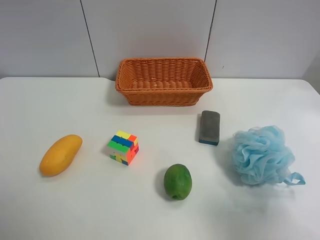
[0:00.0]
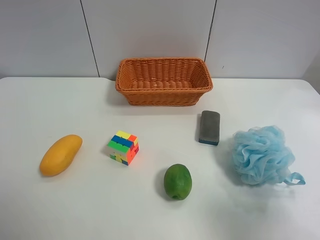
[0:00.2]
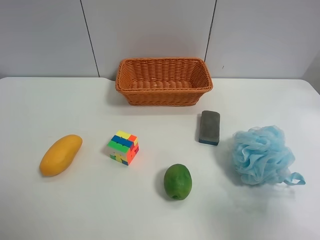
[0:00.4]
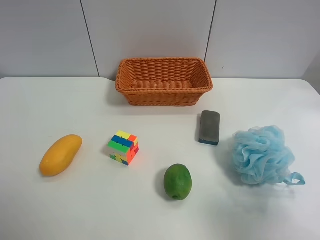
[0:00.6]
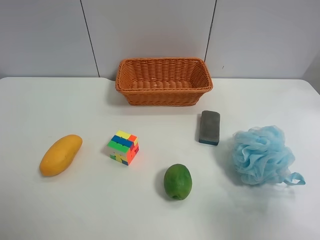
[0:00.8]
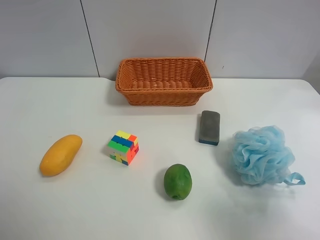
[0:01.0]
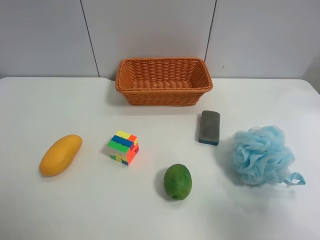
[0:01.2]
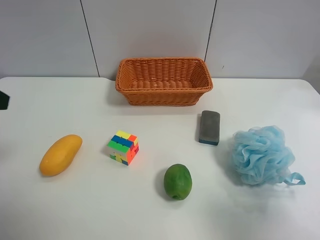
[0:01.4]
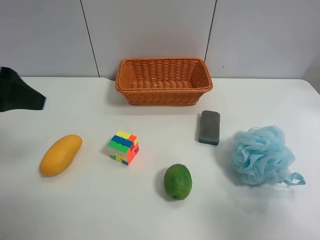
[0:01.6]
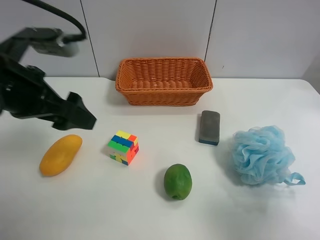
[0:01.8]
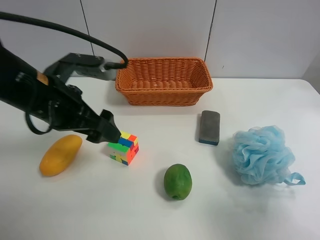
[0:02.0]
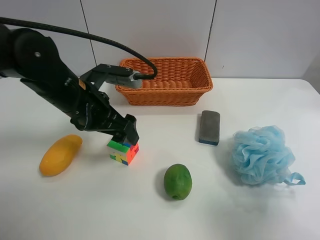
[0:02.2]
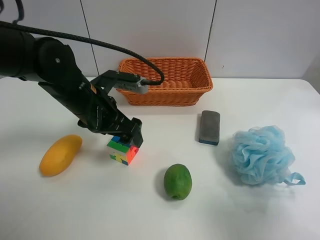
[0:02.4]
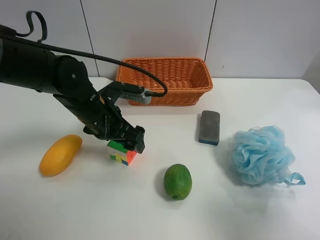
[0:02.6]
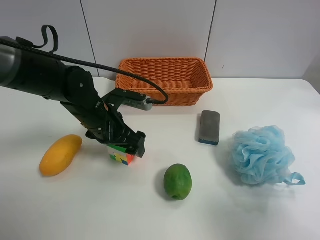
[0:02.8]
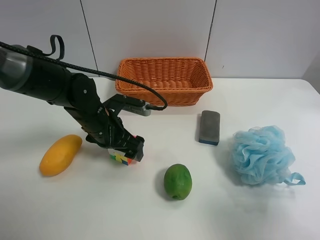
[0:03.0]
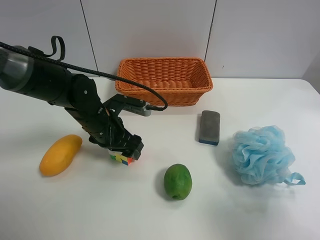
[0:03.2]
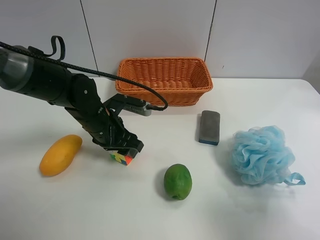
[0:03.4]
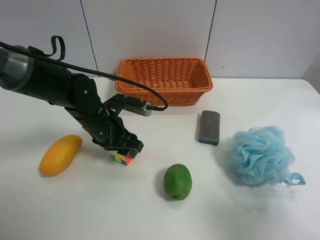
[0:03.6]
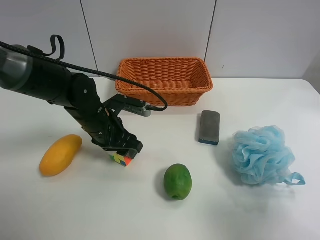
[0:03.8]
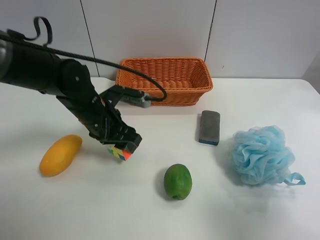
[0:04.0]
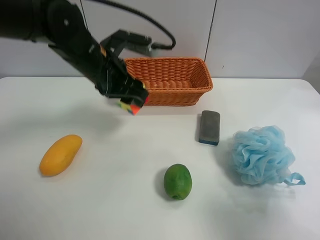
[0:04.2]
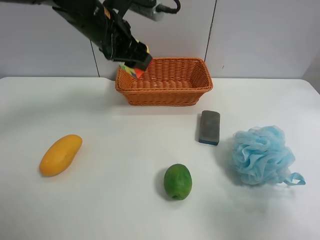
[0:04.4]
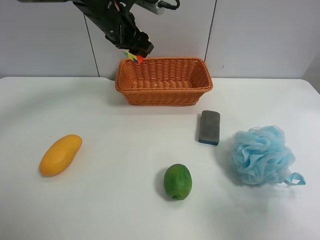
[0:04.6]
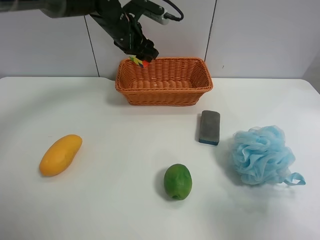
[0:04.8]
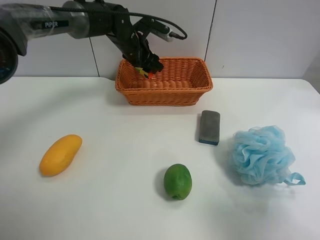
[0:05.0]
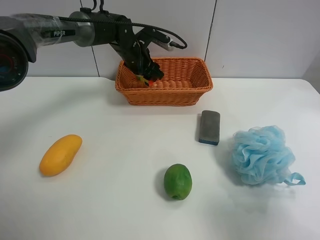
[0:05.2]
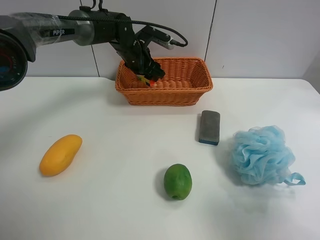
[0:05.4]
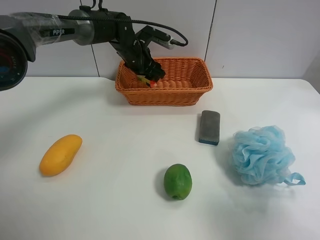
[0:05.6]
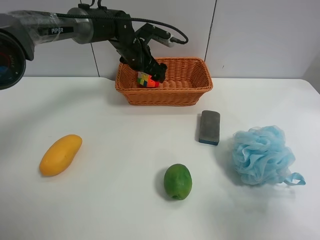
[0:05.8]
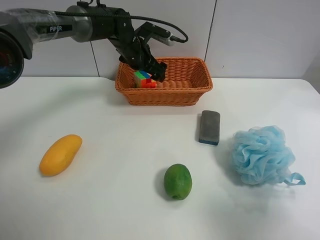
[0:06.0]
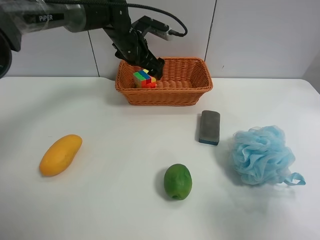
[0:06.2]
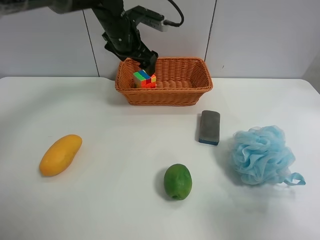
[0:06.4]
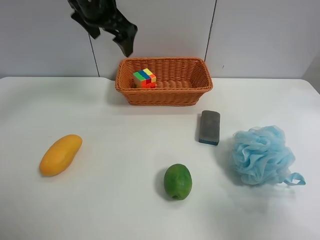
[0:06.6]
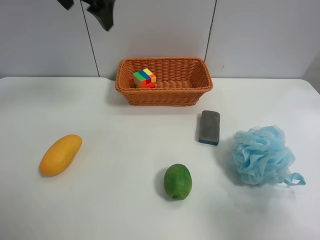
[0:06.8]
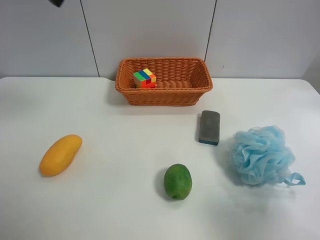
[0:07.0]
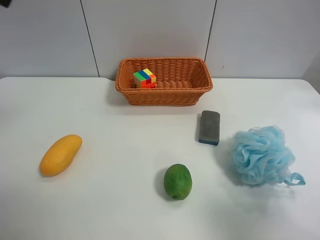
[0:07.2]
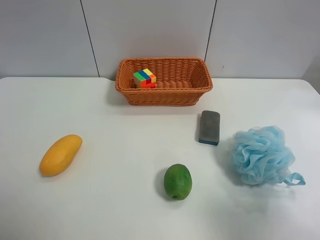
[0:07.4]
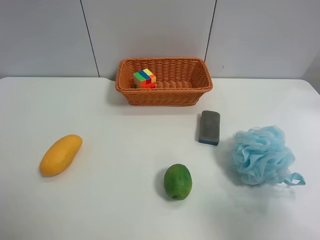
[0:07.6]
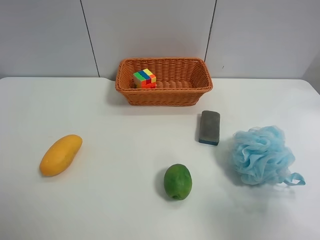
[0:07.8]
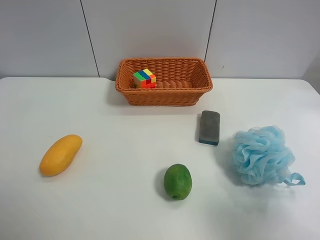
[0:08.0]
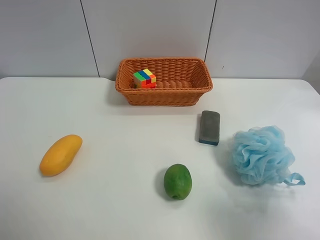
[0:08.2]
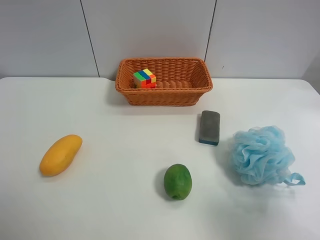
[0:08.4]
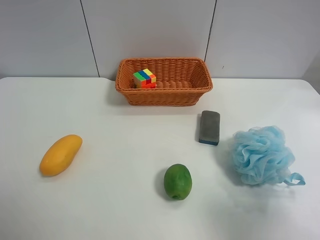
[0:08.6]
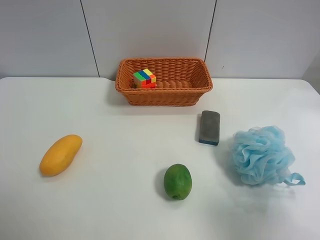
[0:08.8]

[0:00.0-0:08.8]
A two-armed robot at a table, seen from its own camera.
Task of the whole recording: use the left gripper to grab items from the table and place them in the basket.
Step, 0:00.0 to 0:03.6: Grasp the Rubik's Cube with the left gripper.
Step, 0:03.8 to 0:05.8: Place the Rubik's Cube into the basket with the left gripper.
0:01.4 to 0:03.0: The left gripper travels downward, to the right and forward by roughly 30 cm.
0:03.0 to 0:04.4: The left gripper is displaced upward and forward by approximately 15 cm, and closes up.
0:04.4 to 0:05.8: The left gripper heads forward and downward, covering about 15 cm, and opens its fingers.
0:05.8 to 0:07.4: The left gripper travels backward, upward and to the left by approximately 50 cm.
